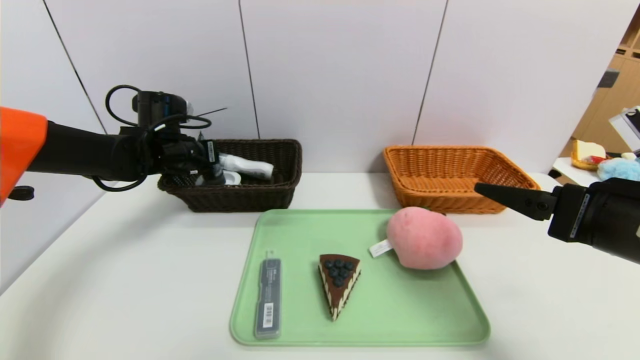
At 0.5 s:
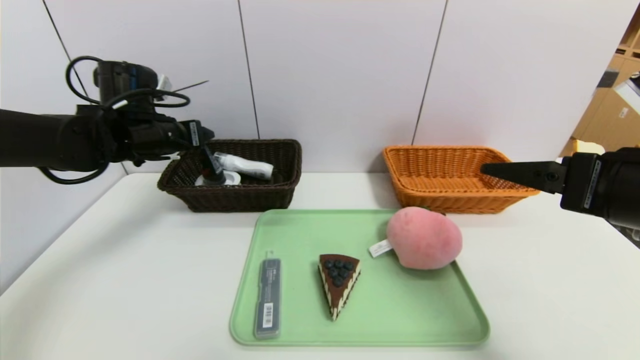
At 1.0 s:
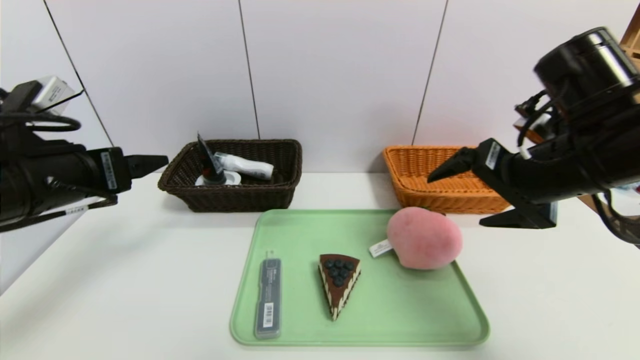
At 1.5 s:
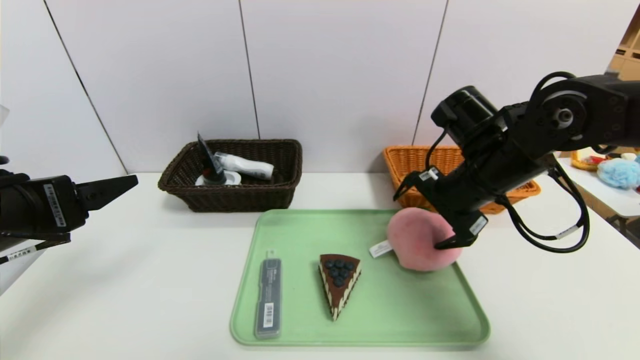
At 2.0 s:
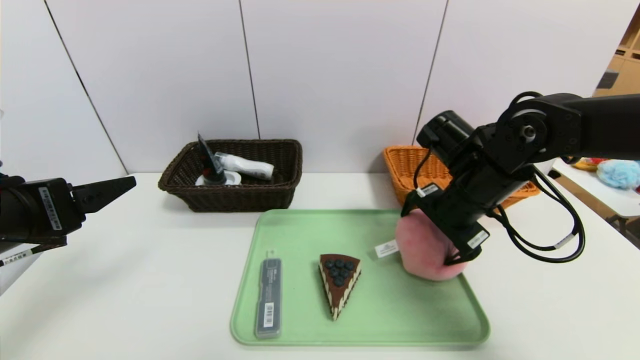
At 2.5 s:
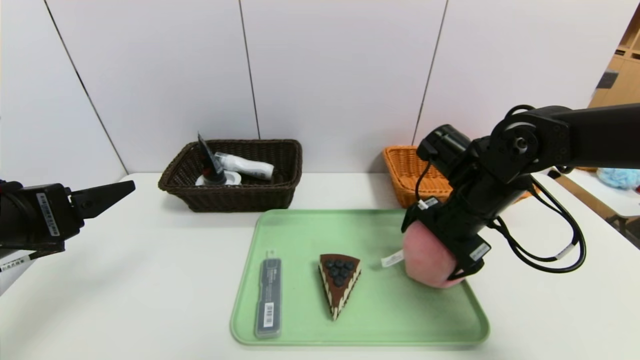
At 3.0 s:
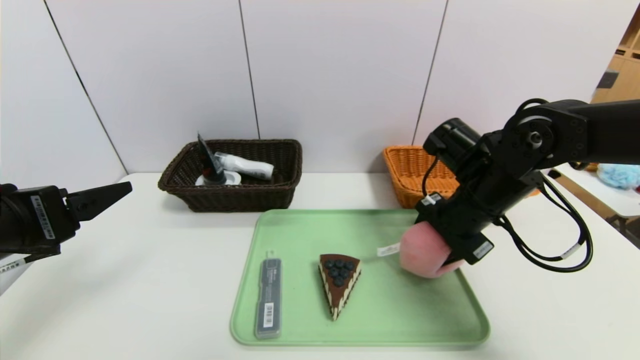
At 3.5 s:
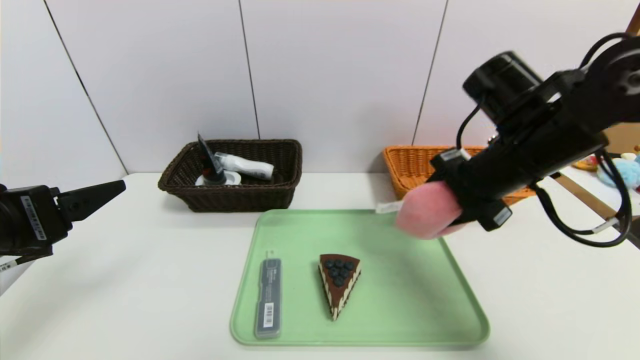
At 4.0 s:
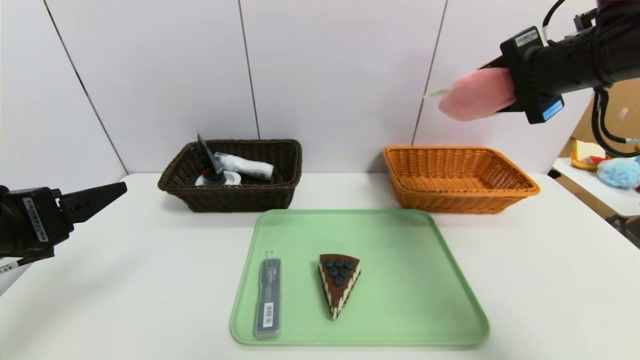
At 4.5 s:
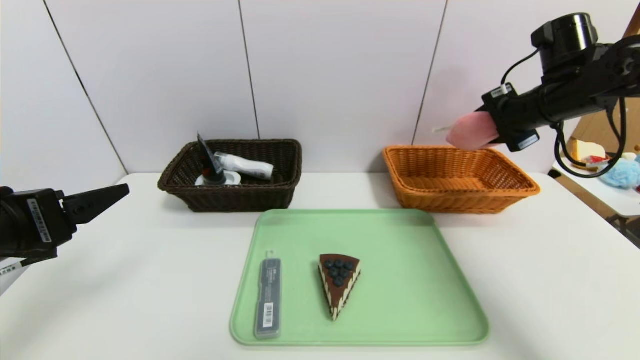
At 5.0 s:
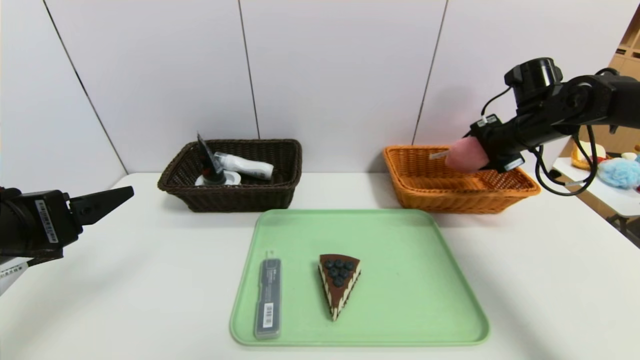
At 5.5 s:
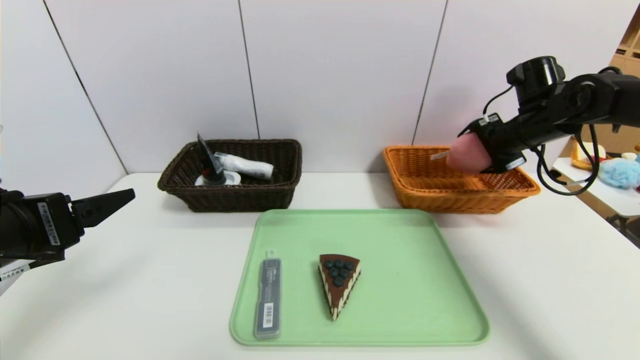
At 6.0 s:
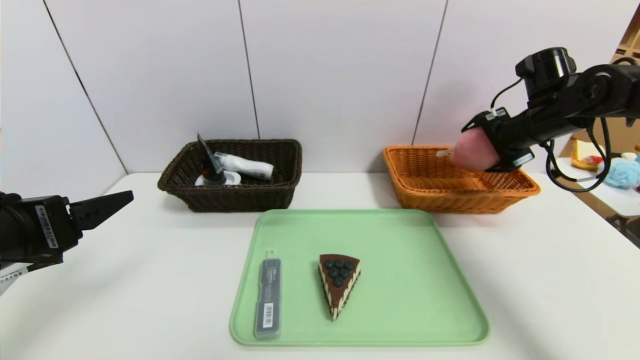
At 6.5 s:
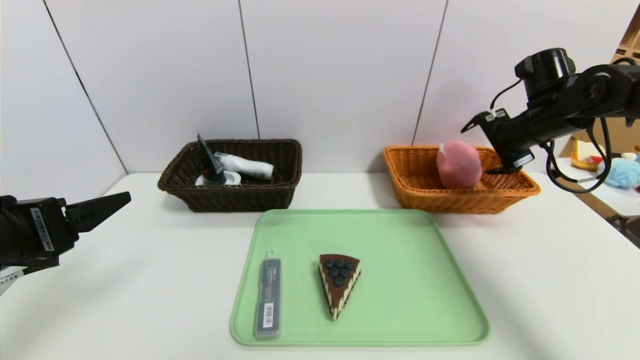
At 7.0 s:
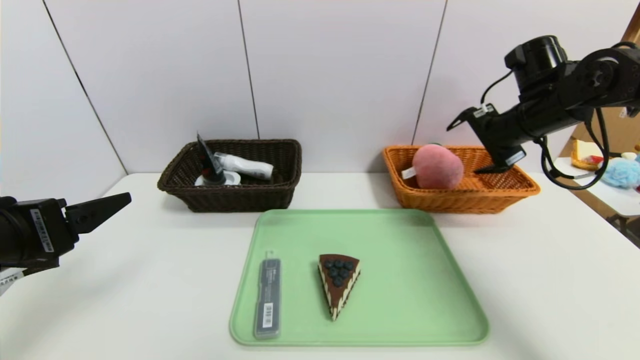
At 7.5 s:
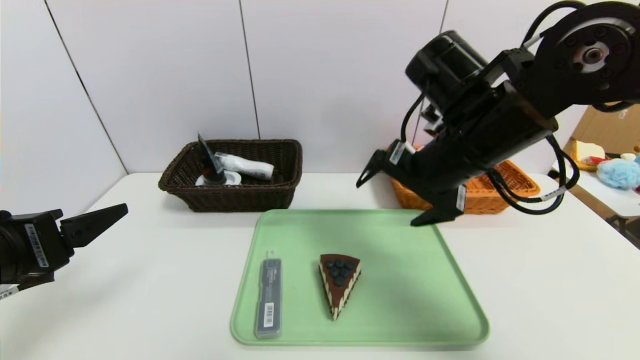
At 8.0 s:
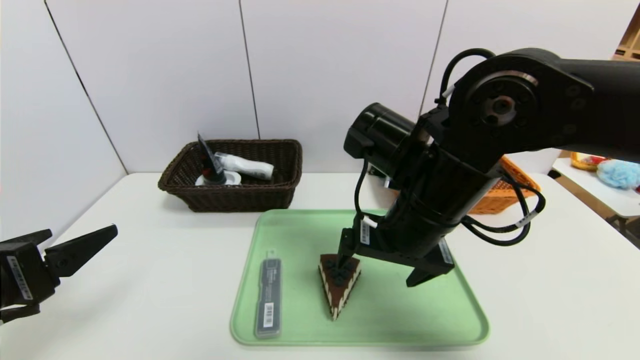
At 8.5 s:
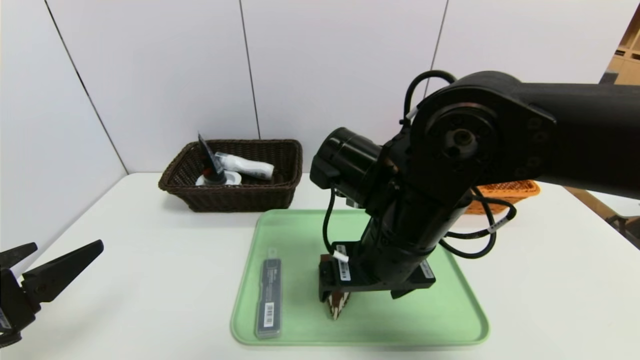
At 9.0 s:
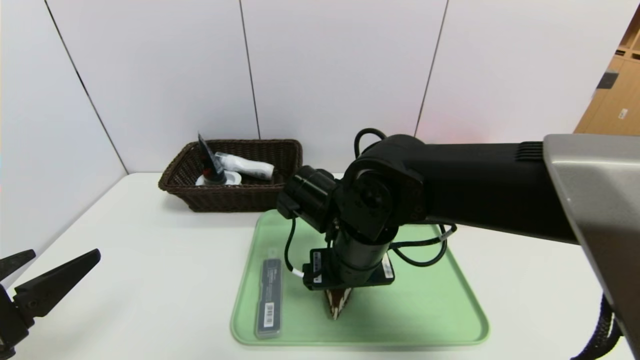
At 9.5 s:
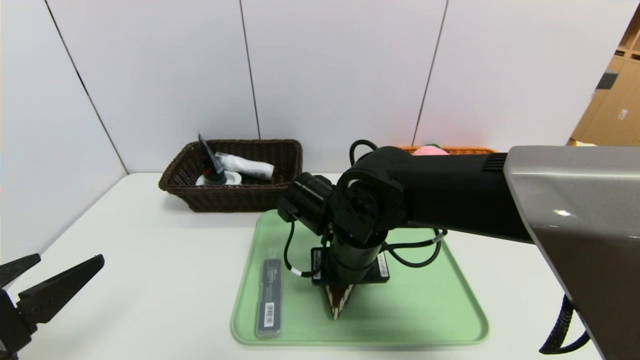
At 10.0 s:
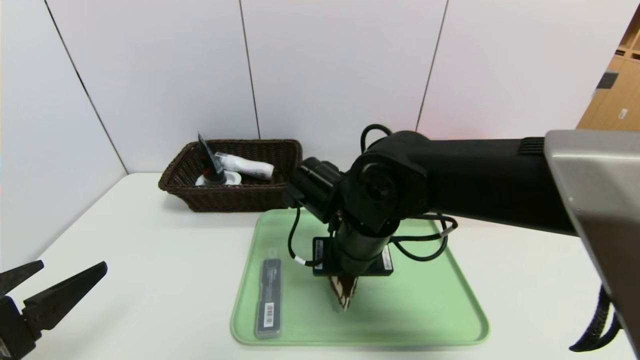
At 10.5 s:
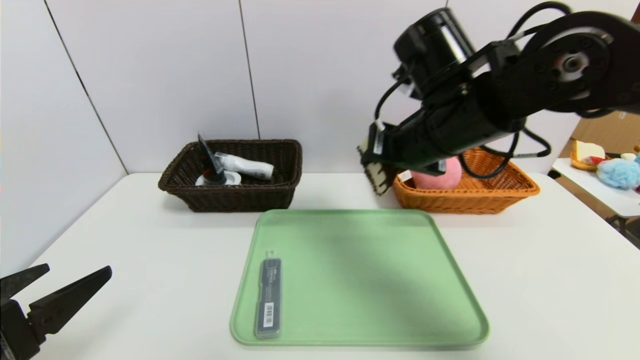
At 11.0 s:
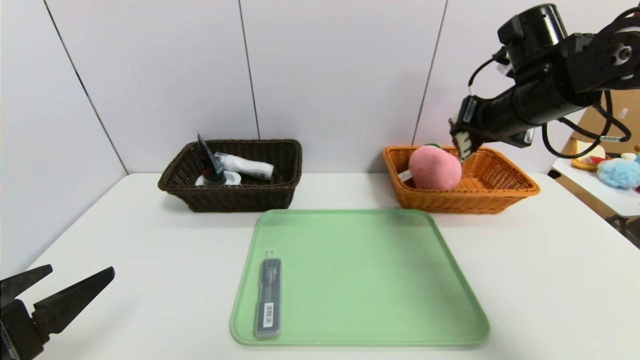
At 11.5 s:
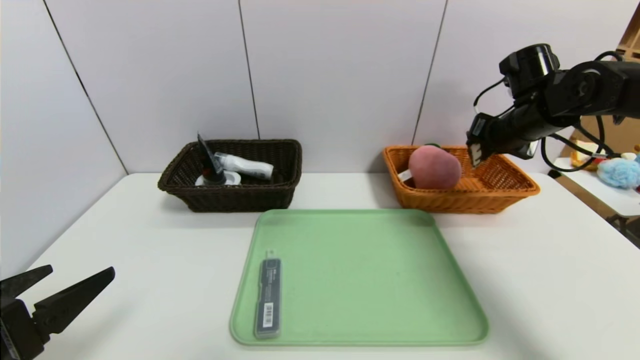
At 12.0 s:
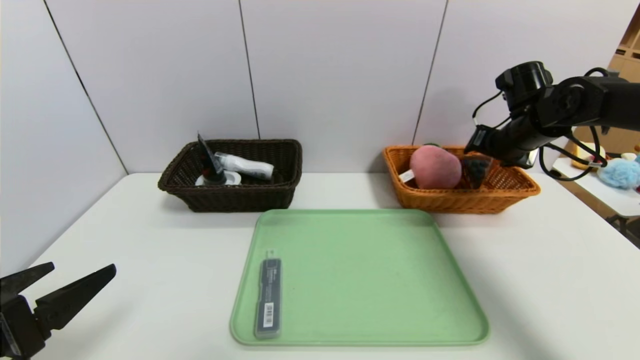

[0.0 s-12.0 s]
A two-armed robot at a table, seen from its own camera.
Task of the whole recording: place the food in the right basket with the right gripper, and place the non food items in the left basket with the left gripper.
Step, 1.0 to 6.5 s: Grasp the peach and put it in the right basket.
0.0 to 2.0 s: The right gripper heads forward and to the left, covering approximately 15 cm, while the left gripper heads backward, covering approximately 25 cm, and opens its fingers.
2.0 to 4.0 s: The right gripper travels upward and to the right by about 20 cm, and closes its fingers.
4.0 to 6.0 s: The right gripper goes about 15 cm forward, downward and to the right, and opens.
6.0 to 8.0 s: The right gripper is displaced to the left and backward by approximately 30 cm.
8.0 to 10.0 s: The right gripper moves downward and to the left, about 10 cm, and closes up.
10.0 to 12.0 s: The right gripper travels to the right and forward by about 35 cm, and opens.

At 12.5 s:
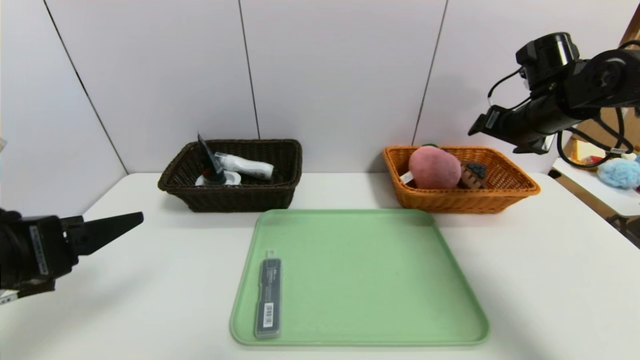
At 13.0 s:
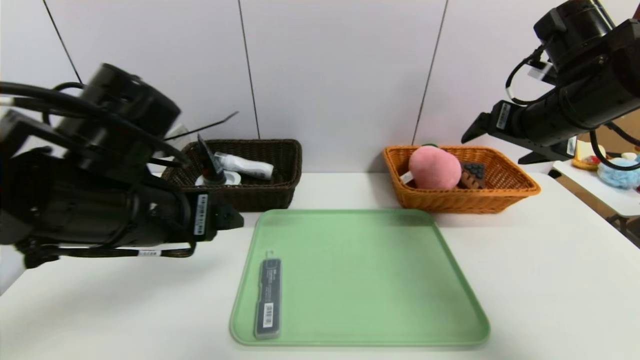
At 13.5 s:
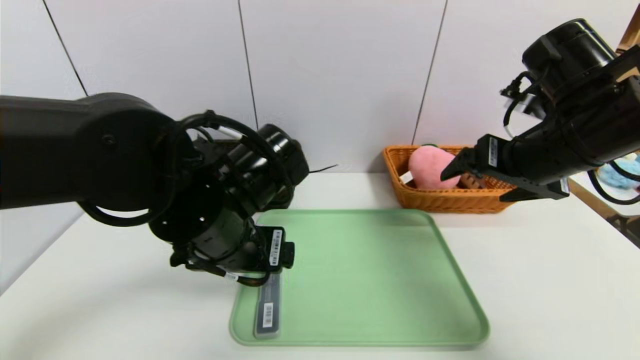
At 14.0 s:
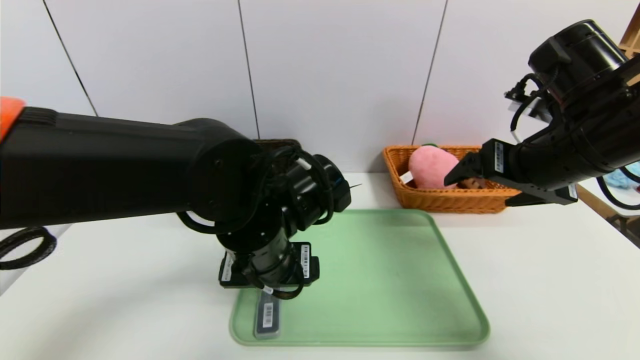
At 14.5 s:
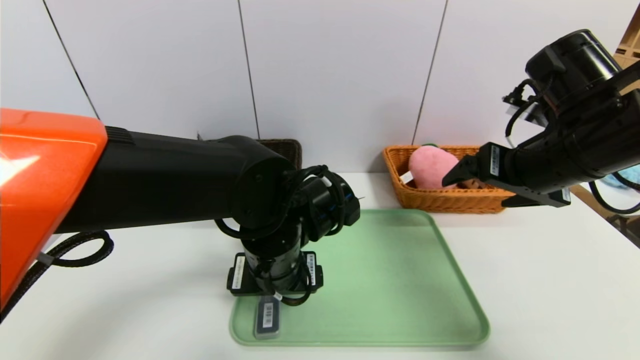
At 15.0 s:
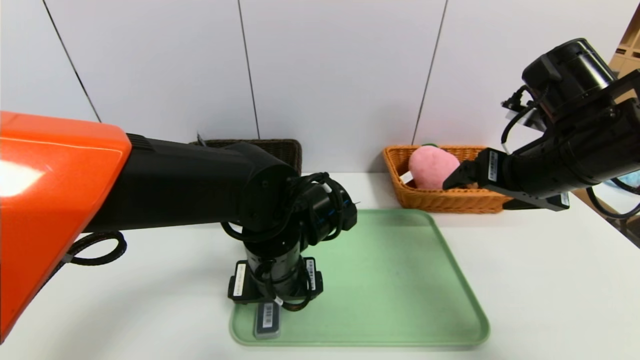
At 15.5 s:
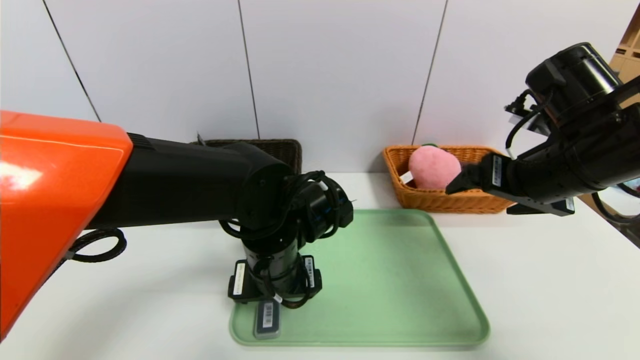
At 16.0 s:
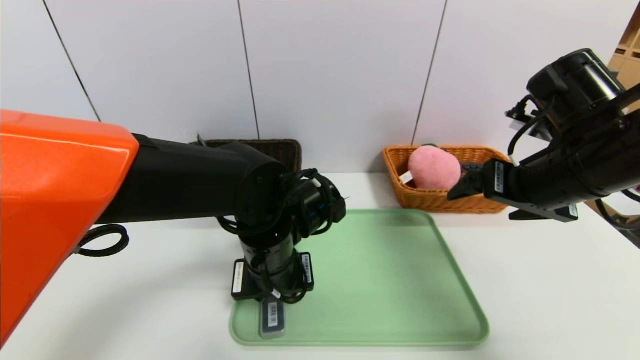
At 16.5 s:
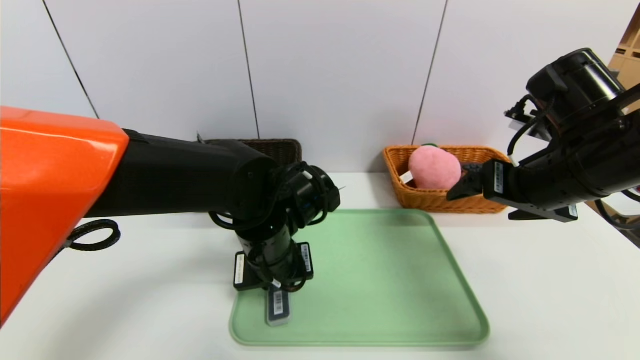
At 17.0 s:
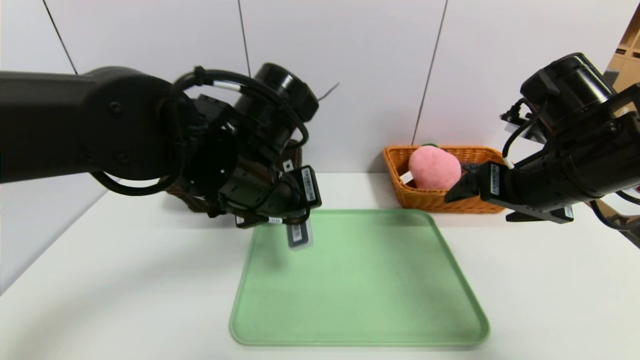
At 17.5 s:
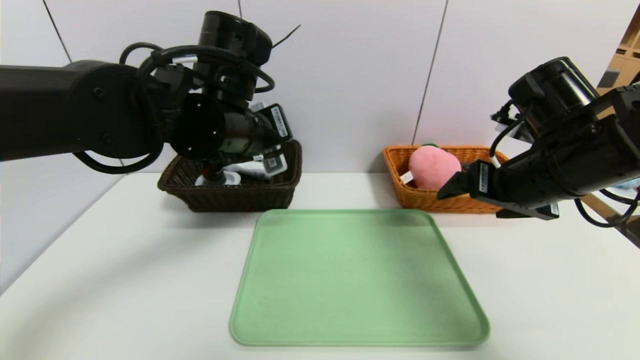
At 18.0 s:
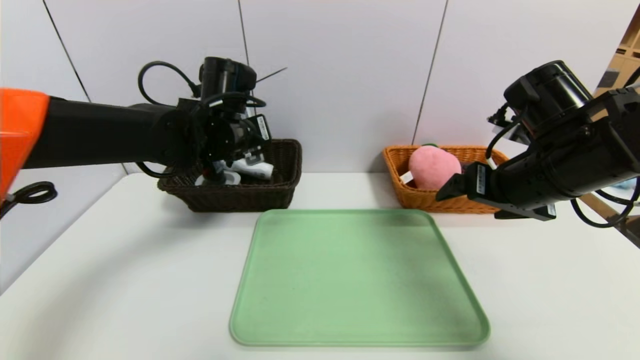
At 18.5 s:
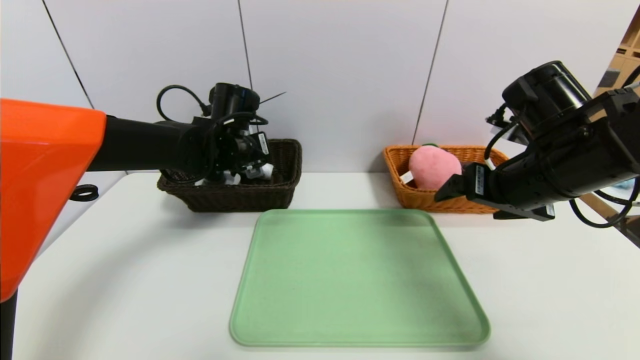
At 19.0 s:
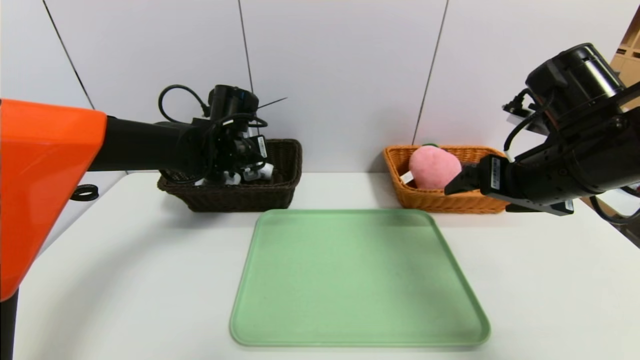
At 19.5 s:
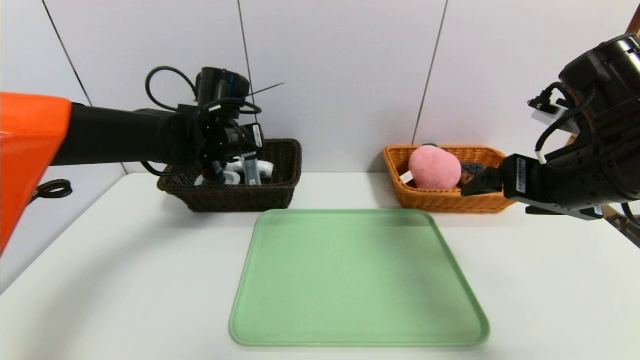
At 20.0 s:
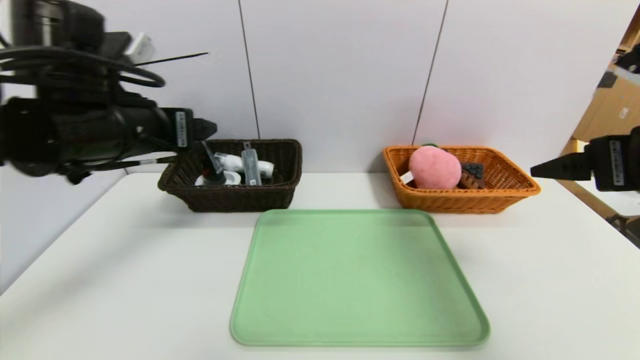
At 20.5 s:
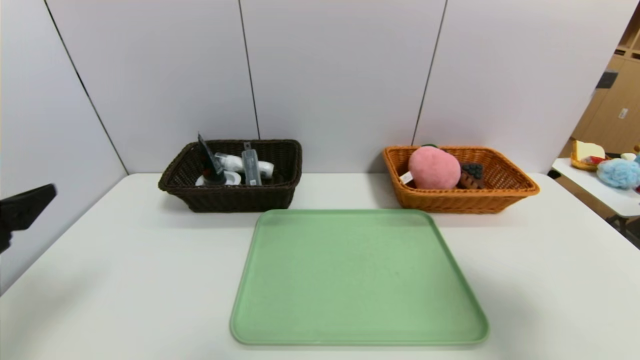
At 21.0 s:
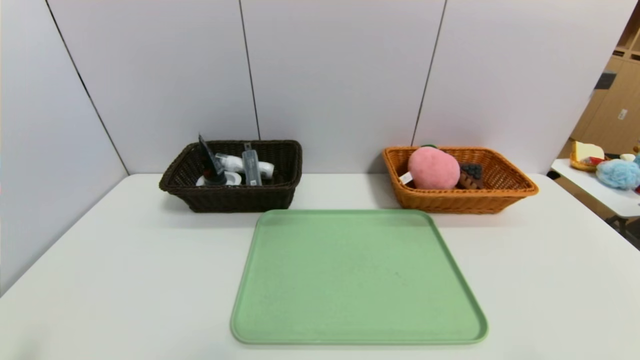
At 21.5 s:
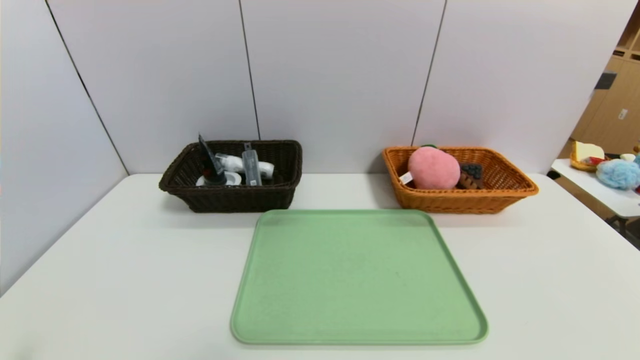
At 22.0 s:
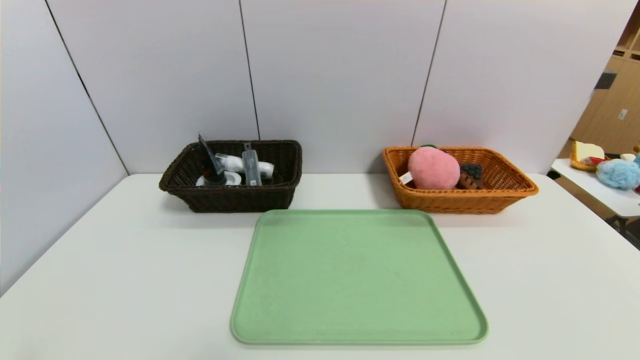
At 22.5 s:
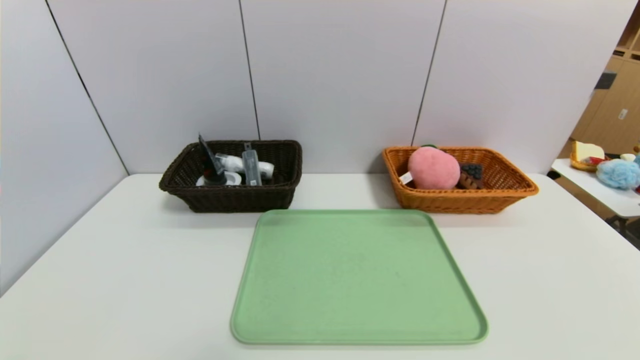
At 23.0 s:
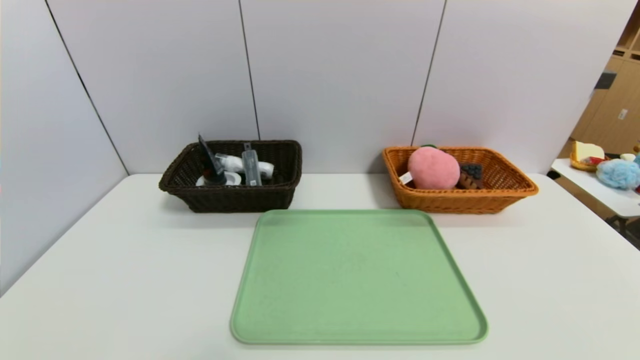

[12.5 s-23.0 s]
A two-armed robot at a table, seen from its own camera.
Task of the whole recording: place the food in the right basket with the right gripper, and place the non food items in the left basket with the left gripper.
Step, 13.0 to 19.5 s: Grasp the compass and put it in the left basket.
12.5 to 14.5 s: The left gripper moves to the right and forward, some 25 cm. The right gripper shifts roughly 15 cm backward and to the left.
14.5 to 16.5 s: The left gripper closes up.
16.5 to 19.0 s: The left gripper heads forward and to the left, covering approximately 15 cm.
19.0 to 21.0 s: The right gripper travels backward by about 25 cm, while the left gripper travels backward and to the left by about 40 cm, and opens up.
